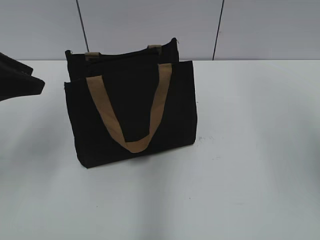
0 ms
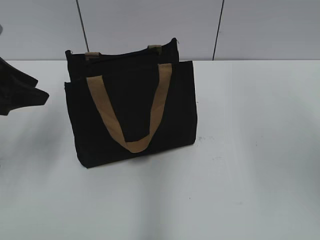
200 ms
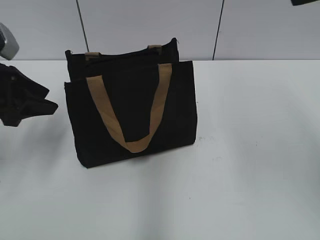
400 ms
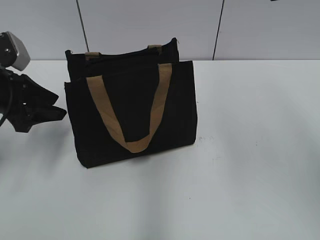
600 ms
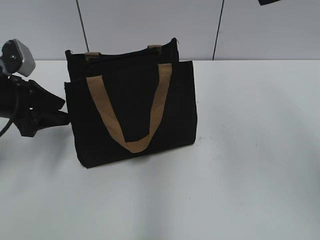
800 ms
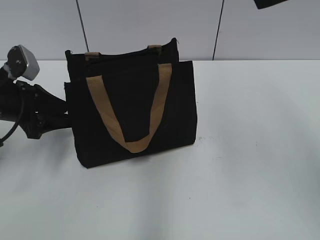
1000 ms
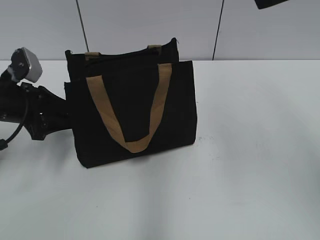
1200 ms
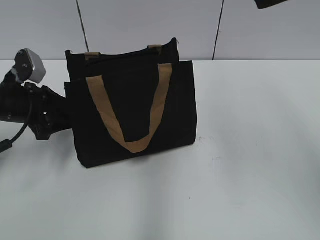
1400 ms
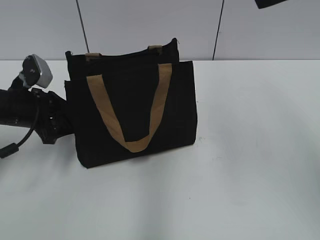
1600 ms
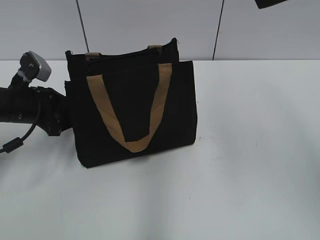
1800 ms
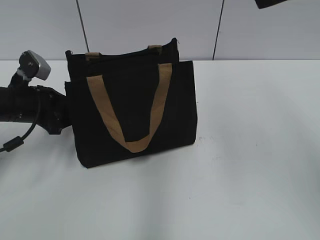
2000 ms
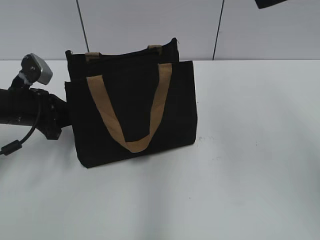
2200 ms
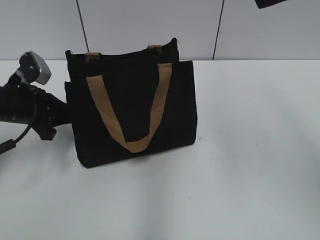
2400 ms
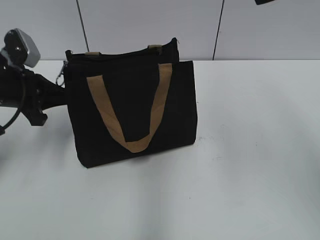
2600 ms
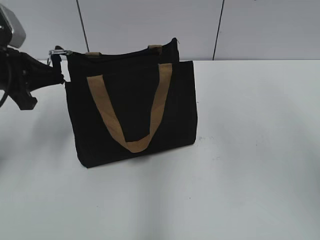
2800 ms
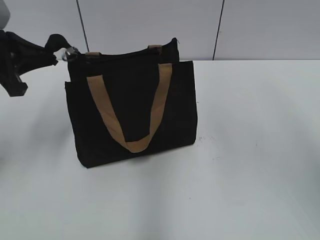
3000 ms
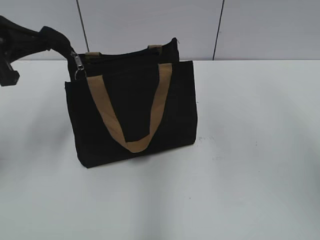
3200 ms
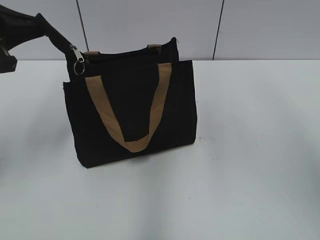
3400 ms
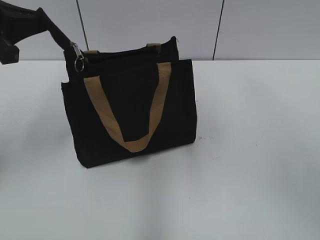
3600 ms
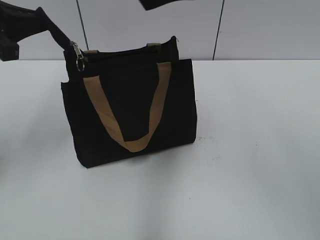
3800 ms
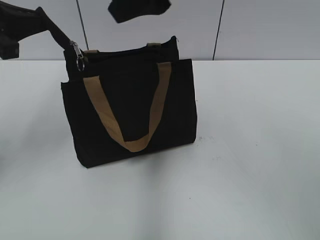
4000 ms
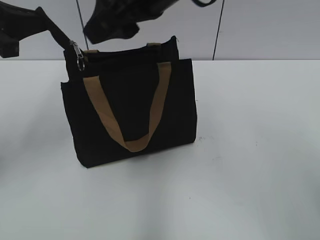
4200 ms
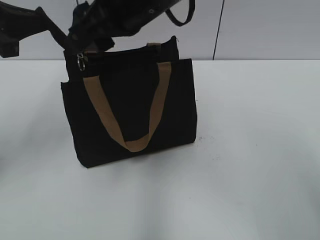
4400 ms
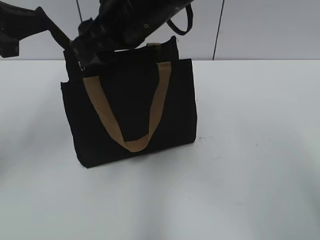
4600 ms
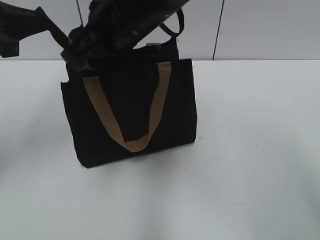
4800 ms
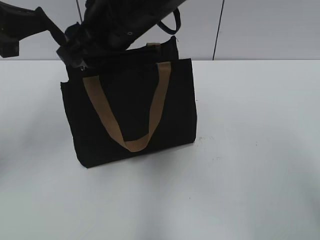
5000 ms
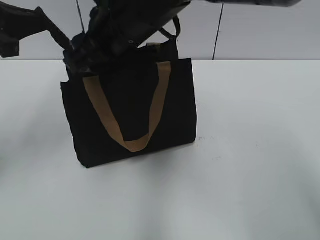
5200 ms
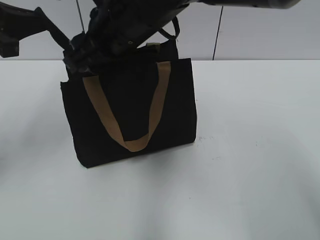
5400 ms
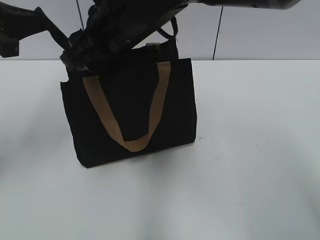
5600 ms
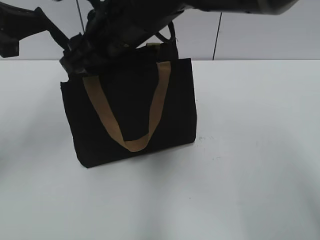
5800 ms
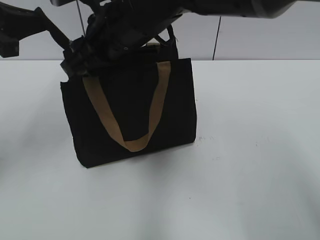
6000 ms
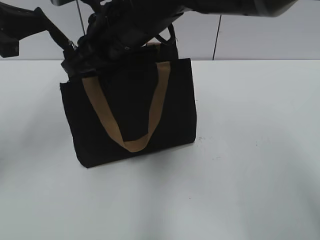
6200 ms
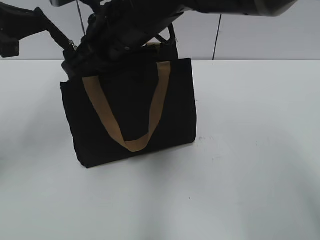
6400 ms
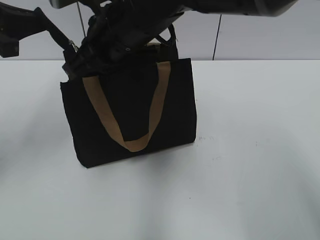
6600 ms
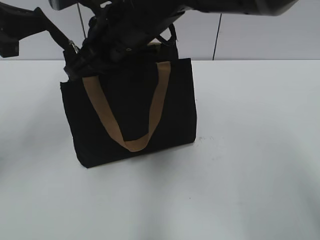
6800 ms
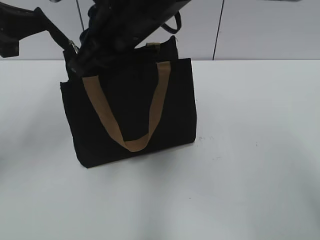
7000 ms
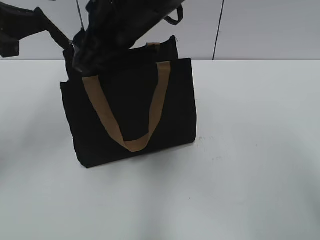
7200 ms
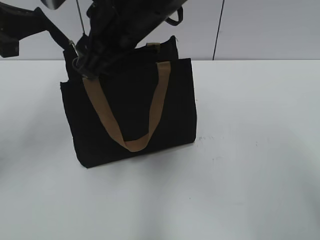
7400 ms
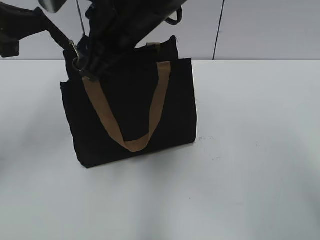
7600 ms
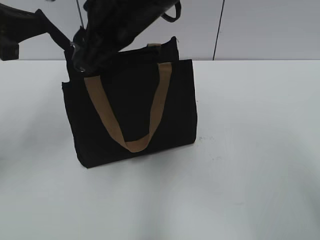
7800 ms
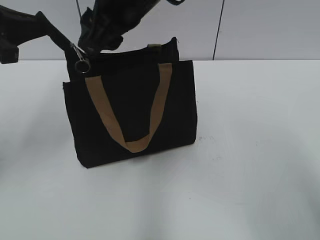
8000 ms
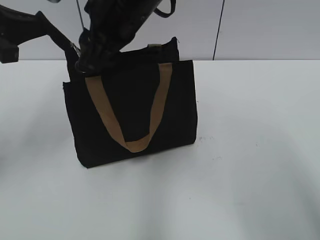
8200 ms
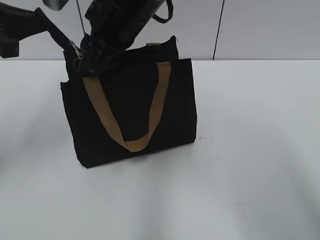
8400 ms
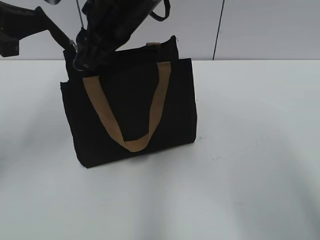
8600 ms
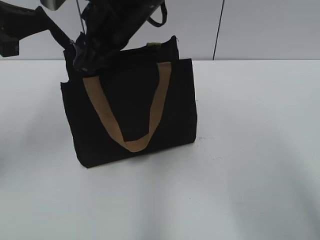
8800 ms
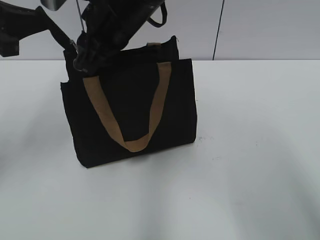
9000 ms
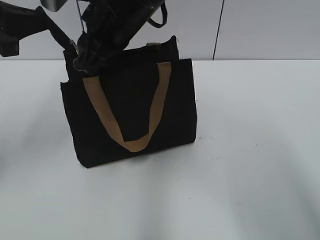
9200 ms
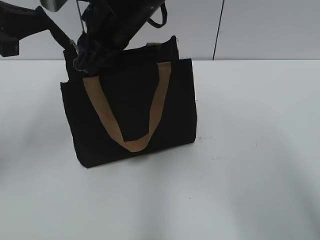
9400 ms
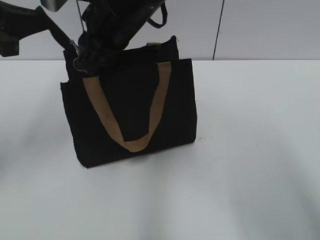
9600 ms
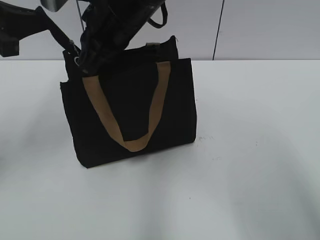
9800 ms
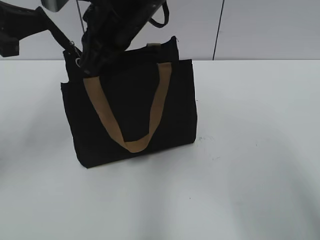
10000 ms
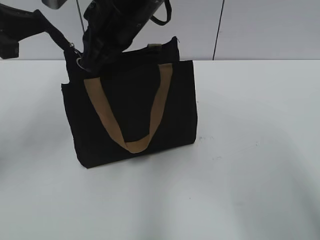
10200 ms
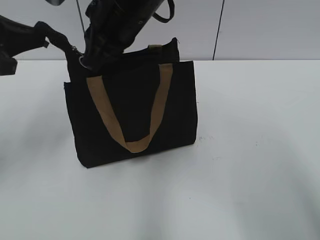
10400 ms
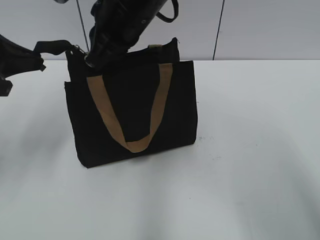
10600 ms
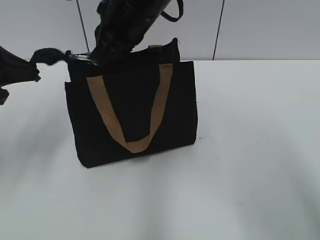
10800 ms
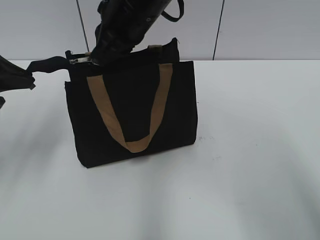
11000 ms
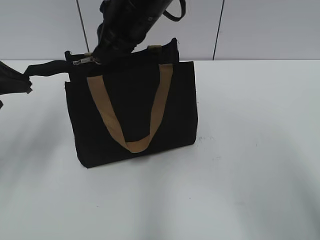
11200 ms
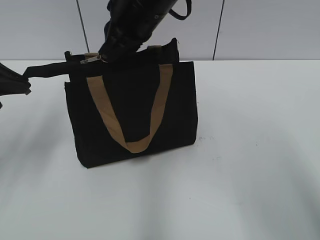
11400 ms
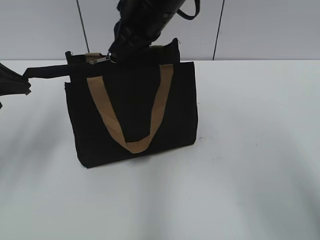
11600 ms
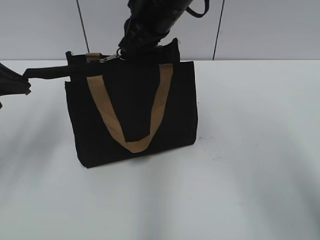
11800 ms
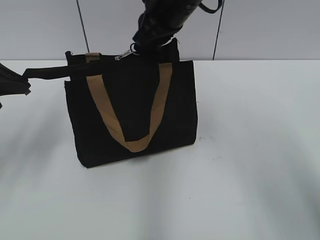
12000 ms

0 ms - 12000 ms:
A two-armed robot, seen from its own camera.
0 ms - 1600 ms: The left gripper moves downward and forward, roughly 15 cm.
1600 ms - 3000 ms: The left gripper travels upward by some 10 cm, and closes.
3000 ms - 4400 ms: The right gripper is displaced to the left and downward by approximately 20 cm.
4400 ms - 6000 ms: The right gripper goes approximately 5 cm downward.
6000 ms - 7600 ms: The right gripper closes, then opens again.
7600 ms - 9000 ms: The grippers stay close to where they were, moving slightly.
9000 ms - 10400 ms: The right gripper closes.
10400 ms - 12000 ms: The right gripper is displaced to the right by about 5 cm.

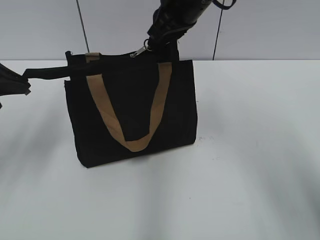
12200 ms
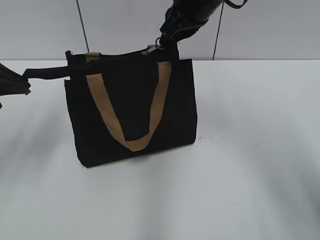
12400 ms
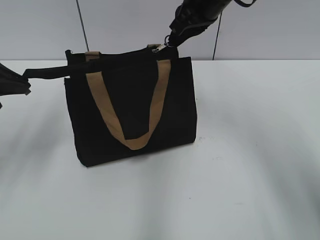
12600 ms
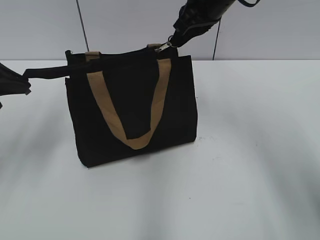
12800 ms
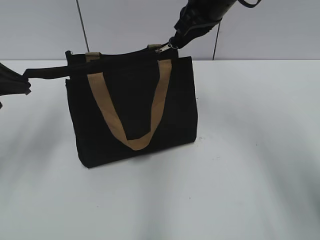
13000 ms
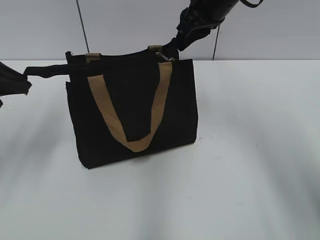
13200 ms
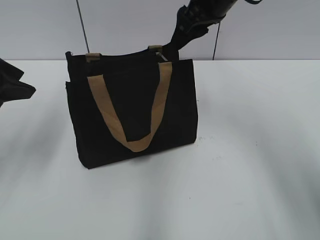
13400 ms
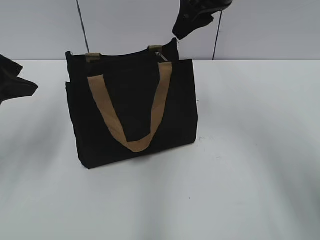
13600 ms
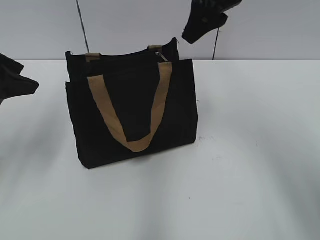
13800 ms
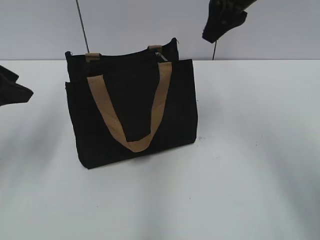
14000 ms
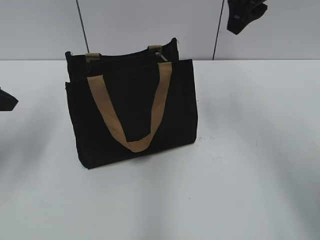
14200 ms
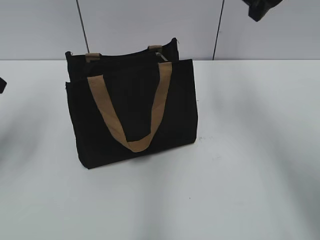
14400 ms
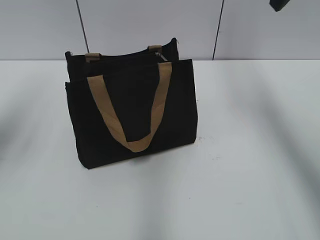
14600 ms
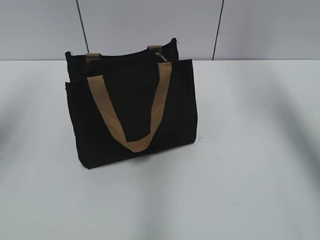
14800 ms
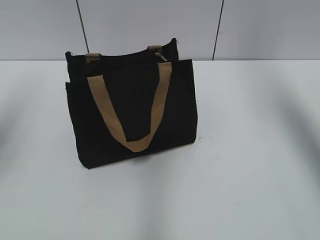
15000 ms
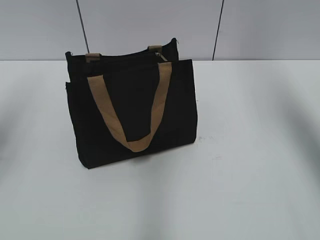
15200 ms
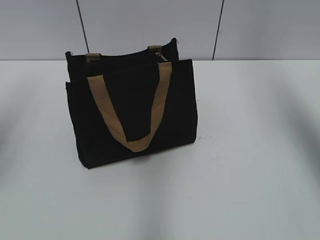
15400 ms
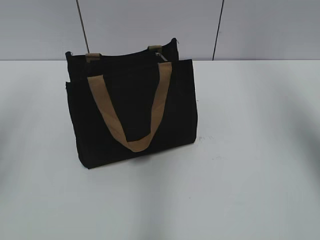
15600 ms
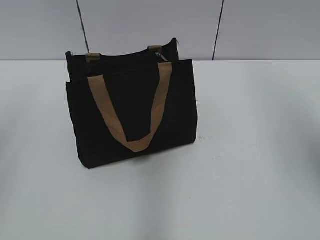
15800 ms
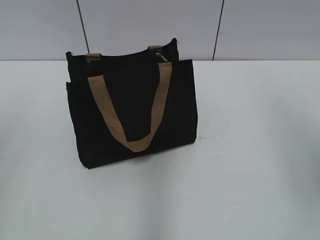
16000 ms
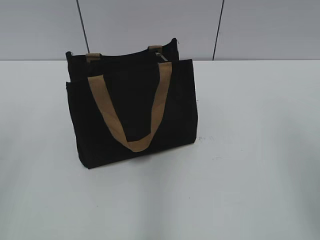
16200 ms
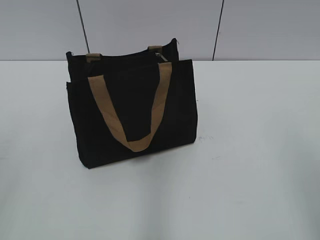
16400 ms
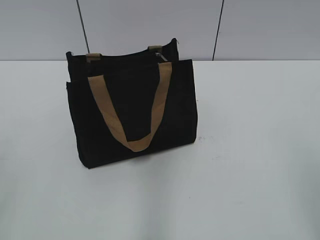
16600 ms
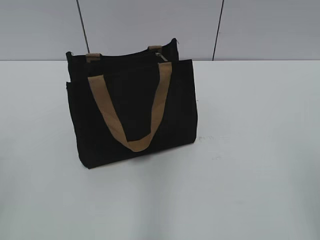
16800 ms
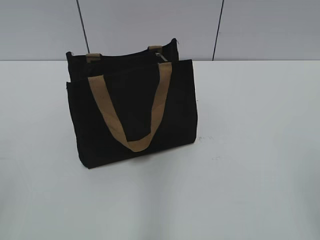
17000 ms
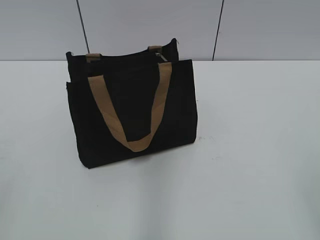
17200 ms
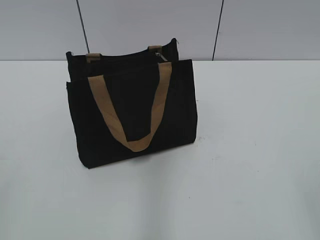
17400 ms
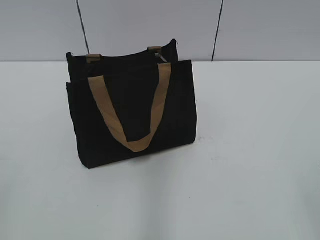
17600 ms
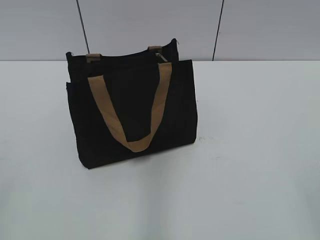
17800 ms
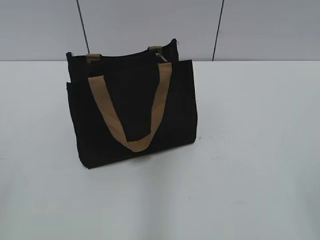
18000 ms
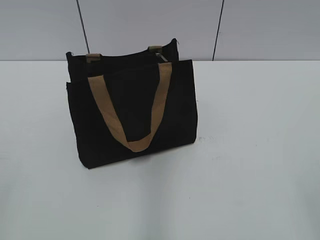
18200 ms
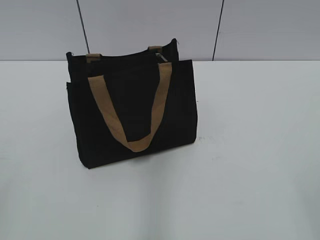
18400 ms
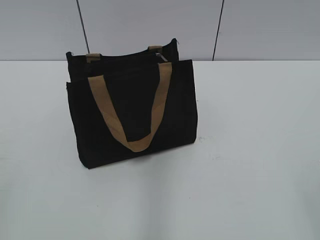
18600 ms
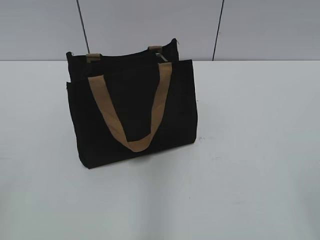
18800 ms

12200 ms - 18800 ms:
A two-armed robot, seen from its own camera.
12200 ms - 13800 ms: The right gripper goes about 5 cm to the right, and opens its fingers, while the left gripper opens.
13800 ms - 15400 ms: The left gripper goes some 10 cm upward. Meanwhile the right gripper heads to the right, upward and backward, covering roughly 20 cm.
15400 ms - 17200 ms: The left gripper is displaced backward by approximately 25 cm. Meanwhile the right gripper is displaced backward and downward by approximately 35 cm.

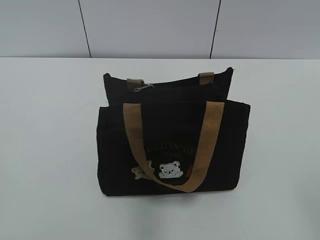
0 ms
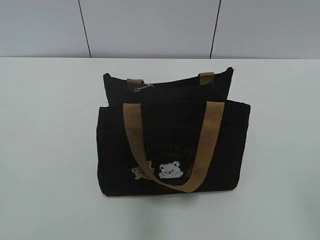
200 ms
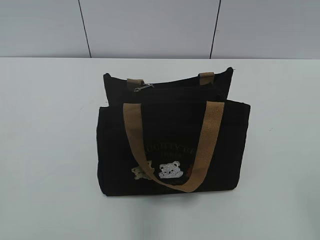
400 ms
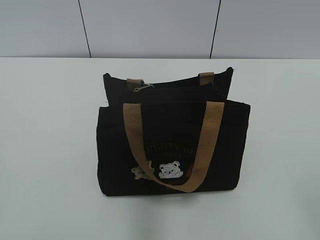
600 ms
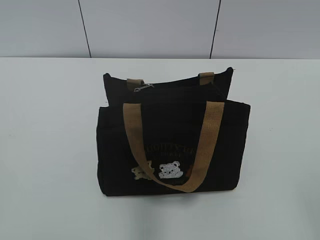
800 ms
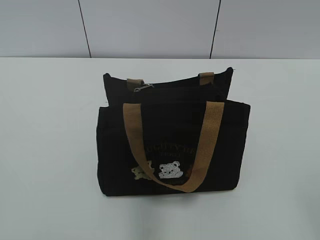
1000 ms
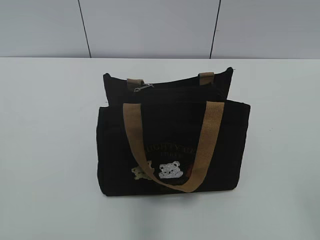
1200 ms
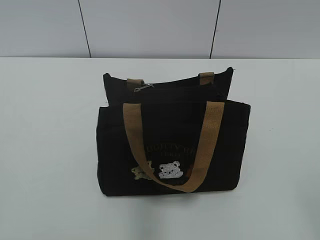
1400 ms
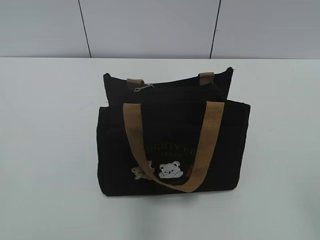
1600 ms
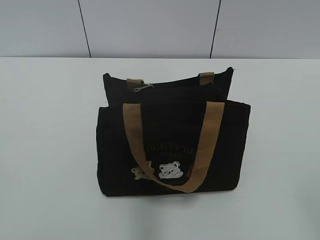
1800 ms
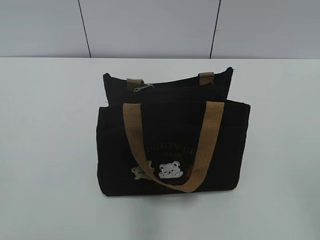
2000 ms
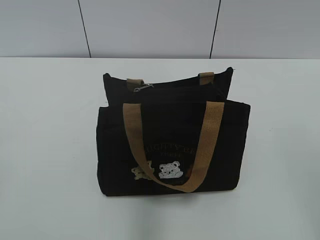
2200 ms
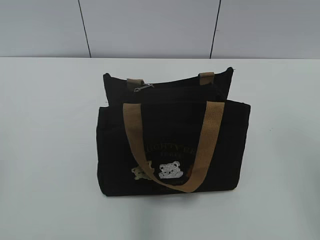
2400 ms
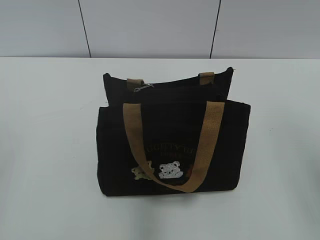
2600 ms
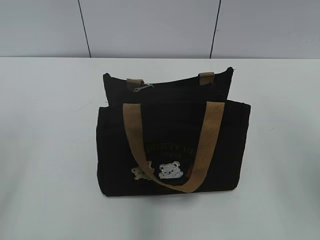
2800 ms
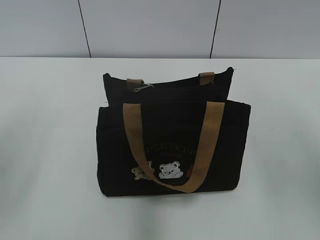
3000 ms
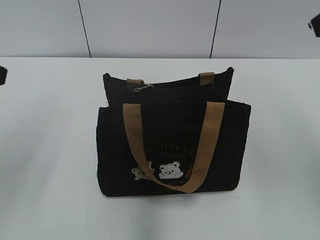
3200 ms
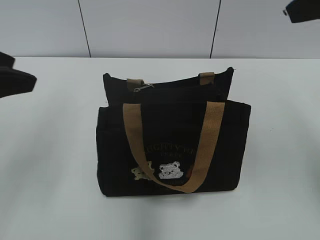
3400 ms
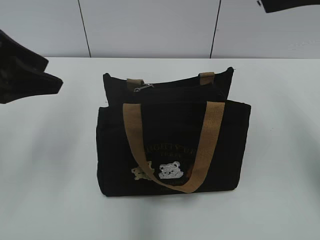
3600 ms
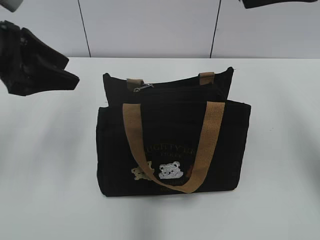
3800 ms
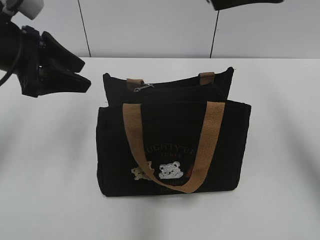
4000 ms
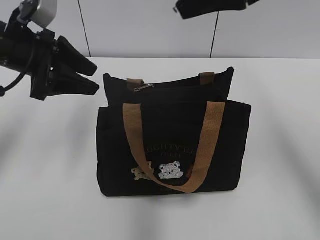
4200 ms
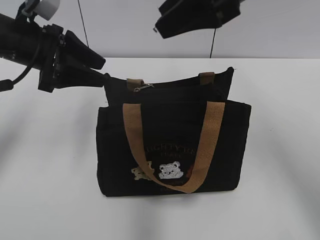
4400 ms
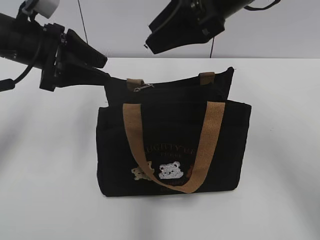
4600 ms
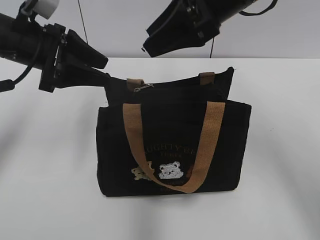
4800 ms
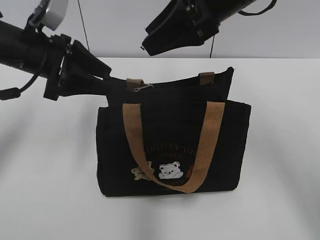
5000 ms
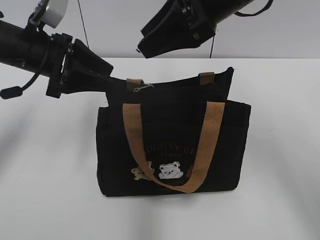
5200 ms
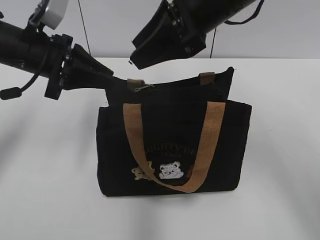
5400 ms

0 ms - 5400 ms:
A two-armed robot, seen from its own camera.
2800 ms - 4000 ms: The right gripper heads forward and to the left, covering about 20 cm, while the left gripper moves forward and to the right, approximately 20 cm.
4000 ms - 5400 ms: The left gripper ends up approximately 5 cm from where it was, and closes up, while the right gripper moves to the left and downward, about 10 cm.
